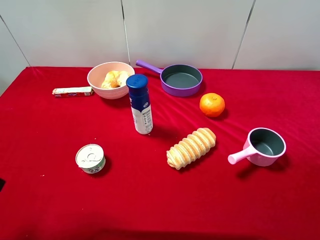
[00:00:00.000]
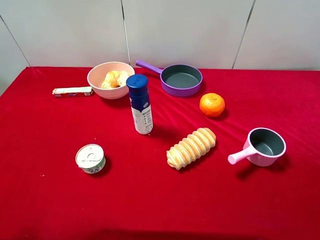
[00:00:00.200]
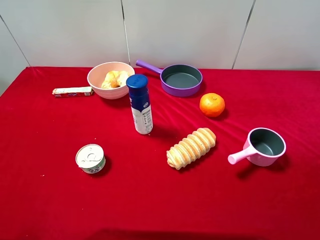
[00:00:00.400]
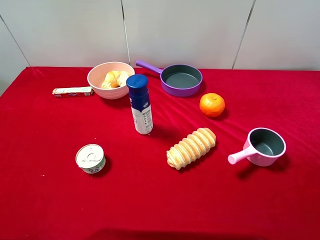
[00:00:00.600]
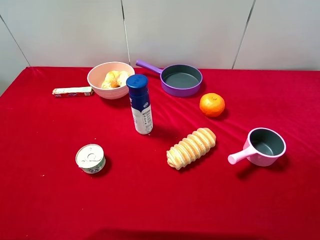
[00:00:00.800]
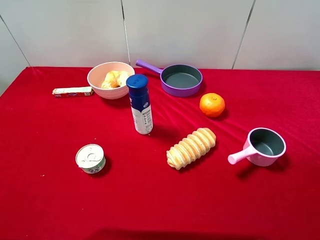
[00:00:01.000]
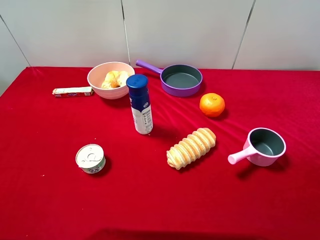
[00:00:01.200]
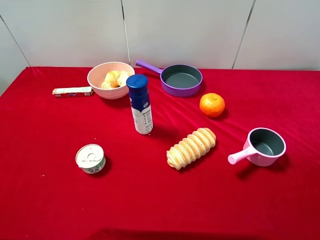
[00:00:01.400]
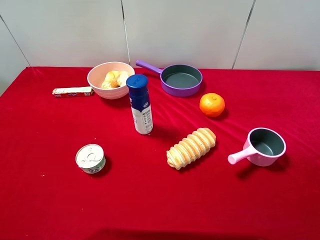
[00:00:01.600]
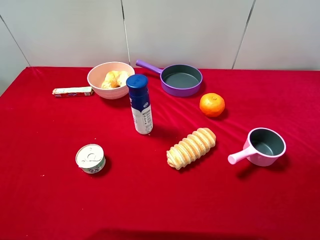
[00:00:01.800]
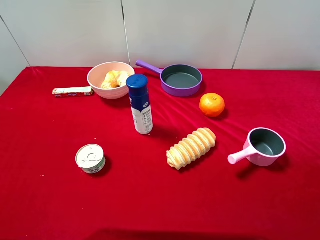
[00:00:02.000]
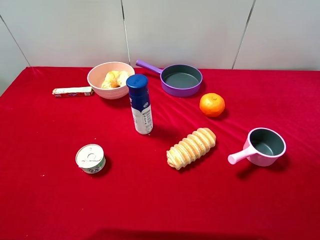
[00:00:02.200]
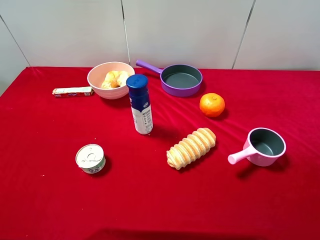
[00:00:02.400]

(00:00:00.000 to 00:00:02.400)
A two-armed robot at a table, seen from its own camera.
Task of the whole recording: pick up an item with a gripper and place it in a random container on the desktop.
00:00:01.200 - 00:00:02.400: Both grippers stay put.

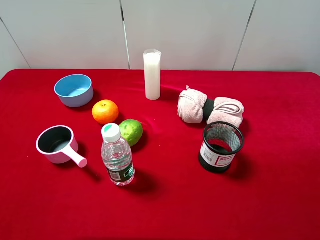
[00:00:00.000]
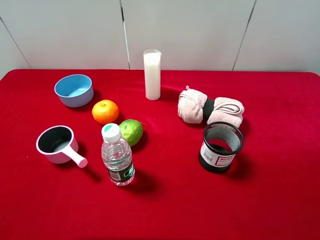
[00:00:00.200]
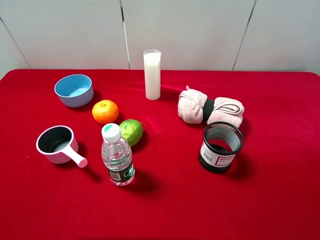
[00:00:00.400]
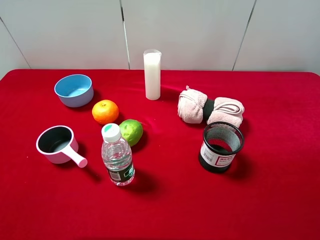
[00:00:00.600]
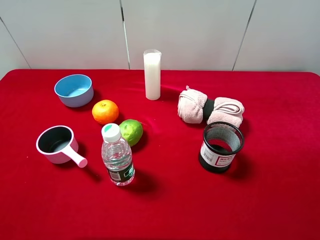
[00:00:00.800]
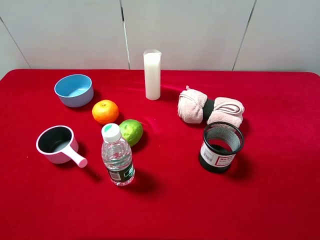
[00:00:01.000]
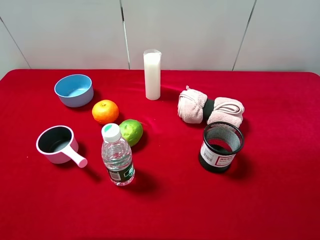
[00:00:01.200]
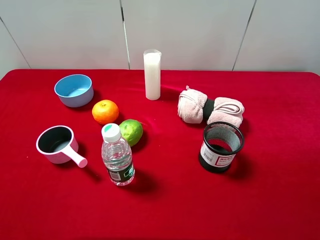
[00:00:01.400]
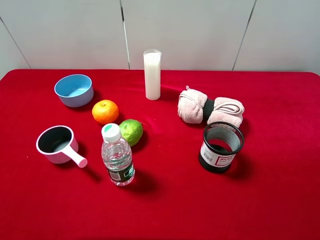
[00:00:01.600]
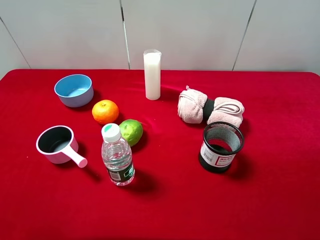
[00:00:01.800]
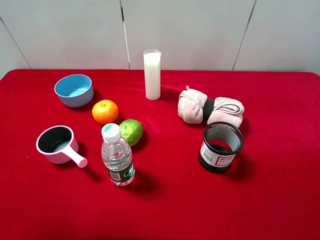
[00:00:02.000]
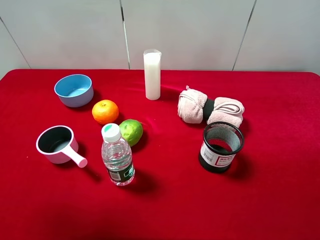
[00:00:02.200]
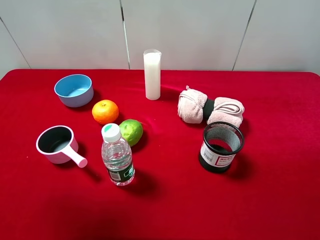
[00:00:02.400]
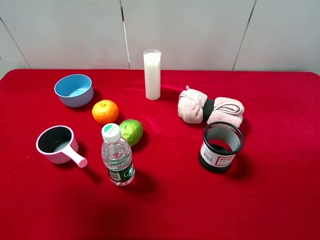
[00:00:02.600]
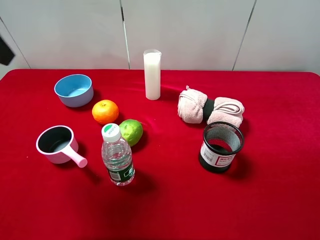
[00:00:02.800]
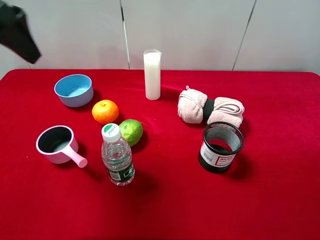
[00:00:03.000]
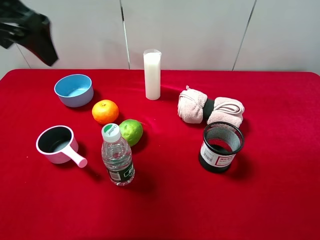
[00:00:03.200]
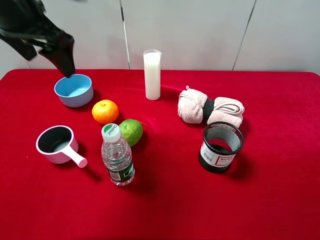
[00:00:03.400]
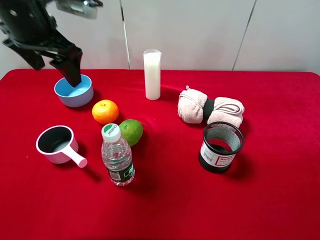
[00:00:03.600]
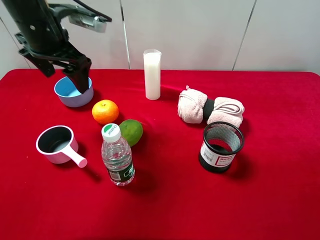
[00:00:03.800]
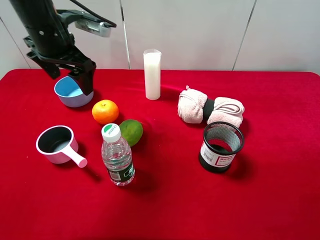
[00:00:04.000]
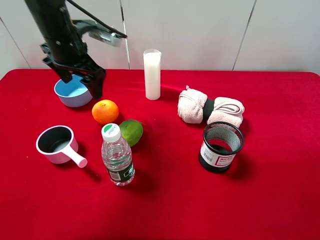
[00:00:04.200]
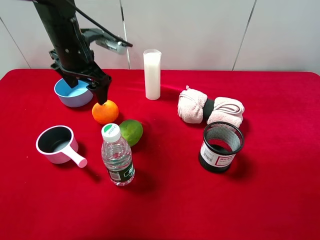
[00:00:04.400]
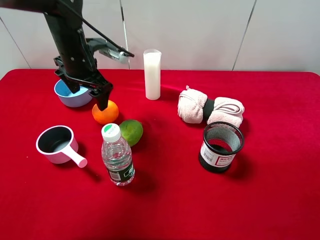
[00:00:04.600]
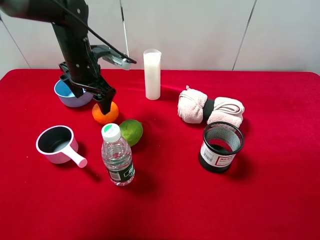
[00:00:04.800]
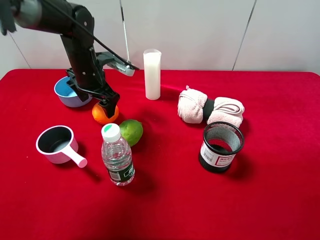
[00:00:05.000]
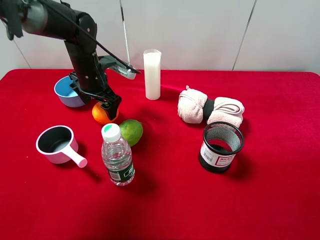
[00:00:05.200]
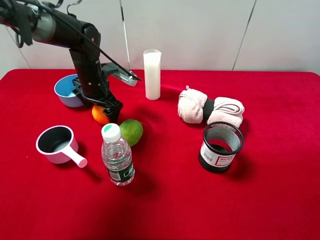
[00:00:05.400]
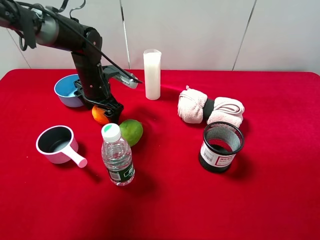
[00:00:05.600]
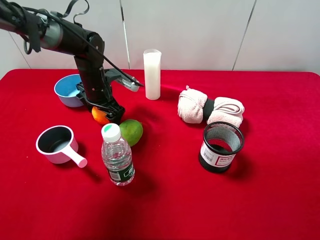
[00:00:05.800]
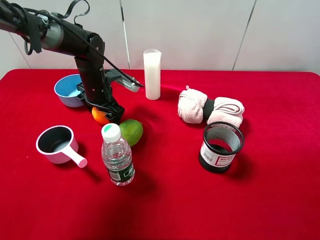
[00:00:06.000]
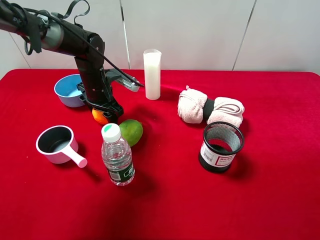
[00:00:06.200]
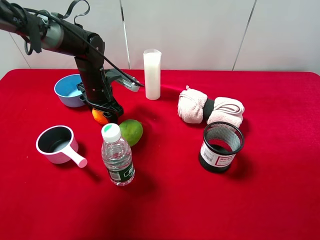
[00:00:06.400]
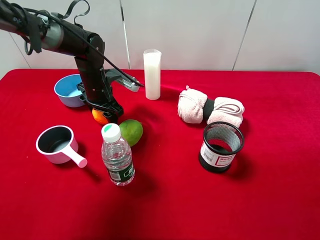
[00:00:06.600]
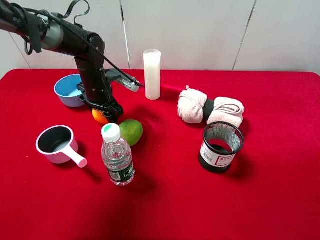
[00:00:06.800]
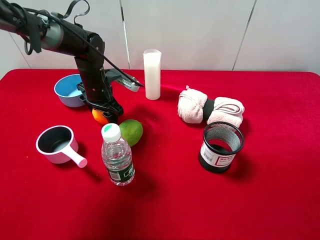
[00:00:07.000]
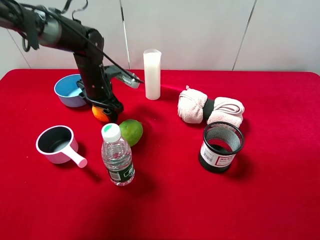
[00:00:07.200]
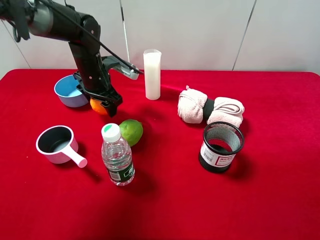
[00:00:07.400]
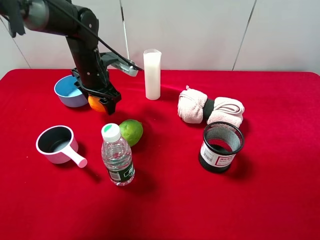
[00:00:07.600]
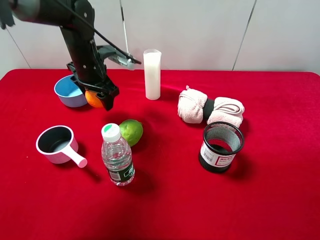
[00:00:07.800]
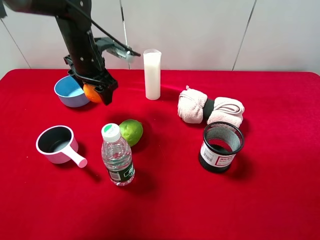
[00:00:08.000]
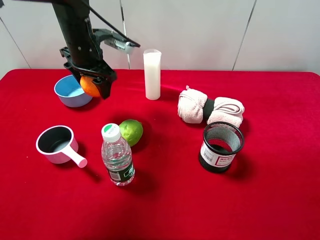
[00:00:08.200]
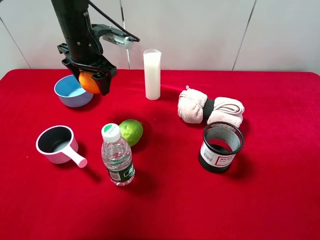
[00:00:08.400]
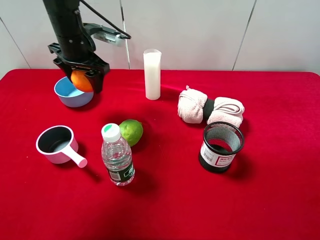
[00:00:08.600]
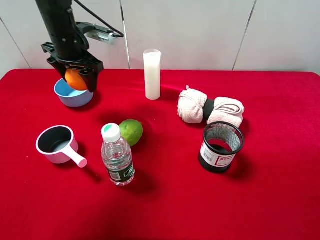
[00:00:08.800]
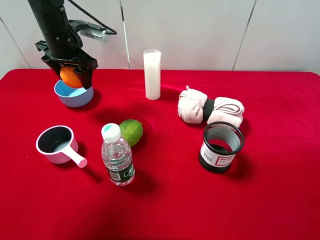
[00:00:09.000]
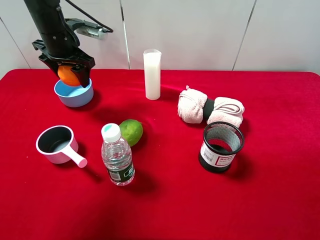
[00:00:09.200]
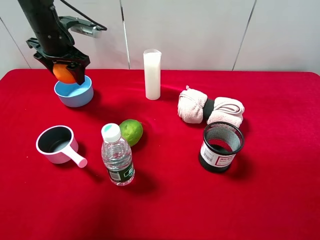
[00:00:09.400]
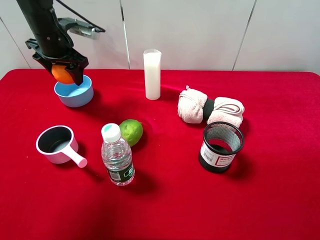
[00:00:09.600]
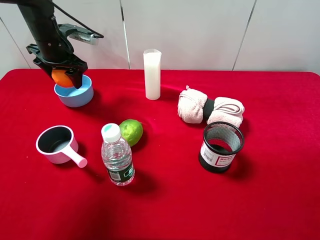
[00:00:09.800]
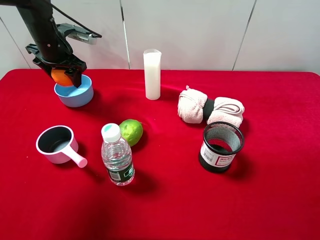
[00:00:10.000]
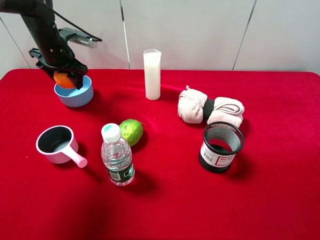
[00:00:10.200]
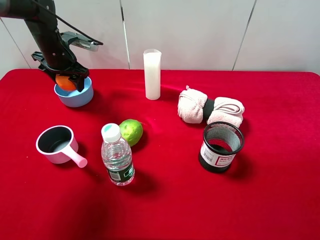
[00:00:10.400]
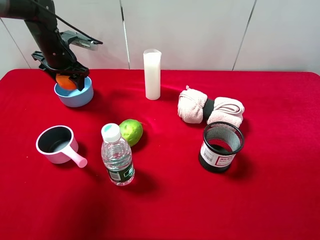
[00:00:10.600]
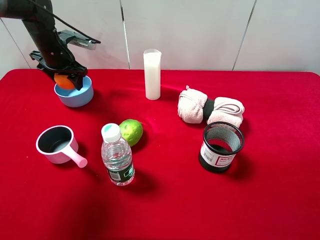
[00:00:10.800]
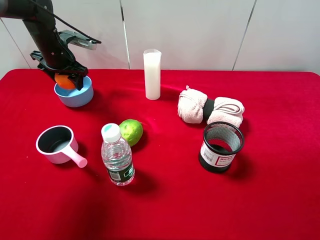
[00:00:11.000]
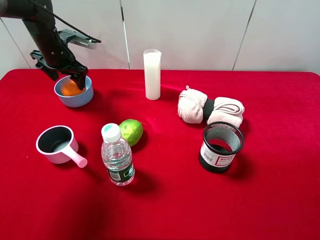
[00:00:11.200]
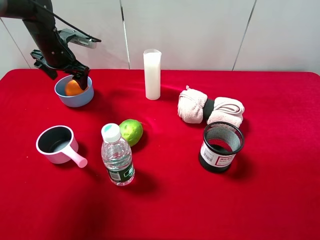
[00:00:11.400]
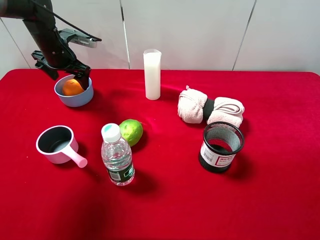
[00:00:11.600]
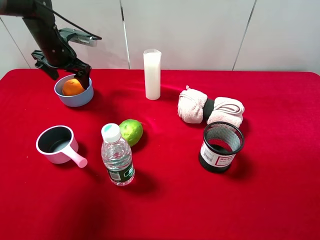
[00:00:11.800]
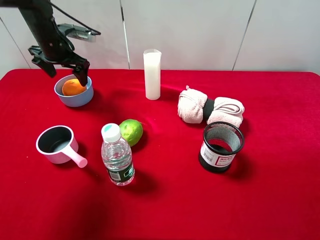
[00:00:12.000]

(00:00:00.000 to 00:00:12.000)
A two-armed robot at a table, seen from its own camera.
Task of the whole recording: pick up an item with a gripper and place it in a random container on the desktop.
00:00:01.600 - 00:00:03.000: The left gripper shifts about 20 cm forward.
00:00:03.000 - 00:00:04.400: The left gripper travels downward, forward and to the right by roughly 20 cm.
00:00:04.400 - 00:00:06.000: The left gripper shifts about 10 cm downward.
00:00:06.000 - 00:00:07.600: The left gripper goes about 5 cm upward, and closes up.
00:00:07.600 - 00:00:09.000: The left gripper travels upward and to the left by roughly 10 cm.
00:00:09.000 - 00:00:10.400: The left gripper shifts some 5 cm downward.
00:00:10.400 - 00:00:12.000: The left gripper opens its fingers.

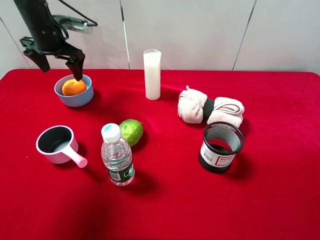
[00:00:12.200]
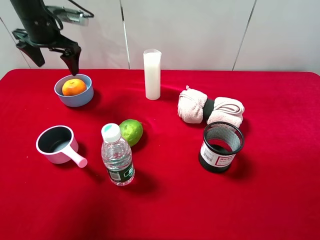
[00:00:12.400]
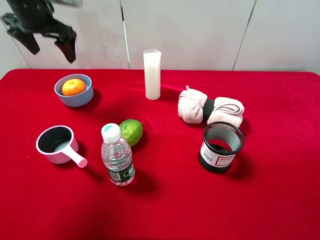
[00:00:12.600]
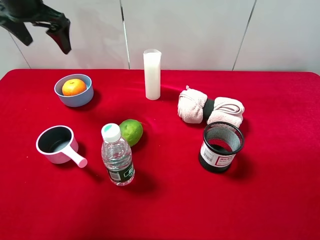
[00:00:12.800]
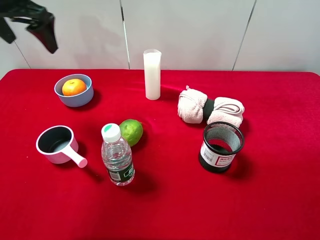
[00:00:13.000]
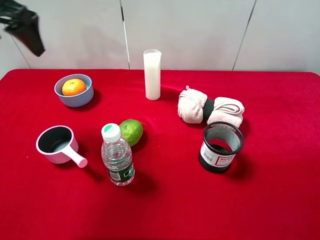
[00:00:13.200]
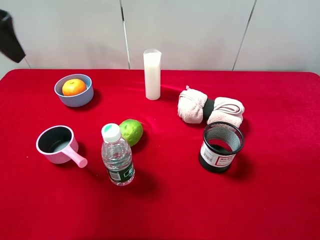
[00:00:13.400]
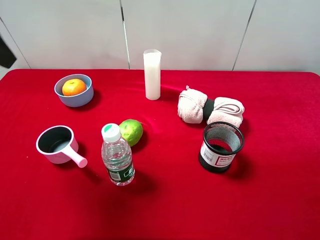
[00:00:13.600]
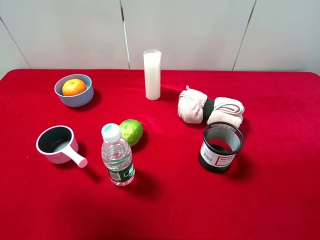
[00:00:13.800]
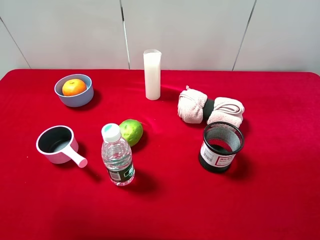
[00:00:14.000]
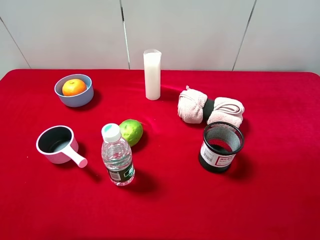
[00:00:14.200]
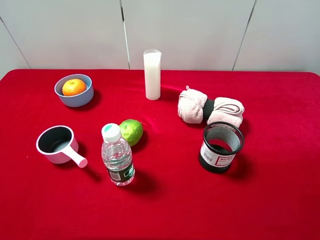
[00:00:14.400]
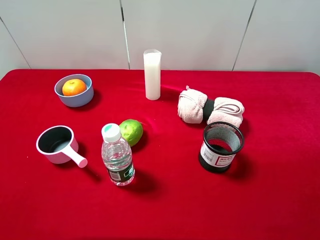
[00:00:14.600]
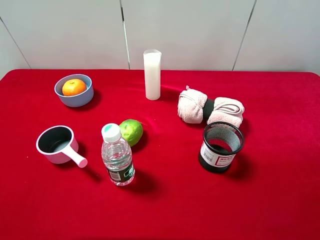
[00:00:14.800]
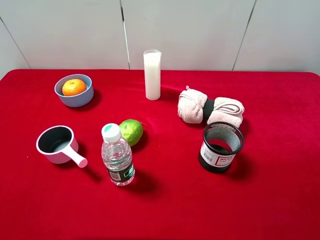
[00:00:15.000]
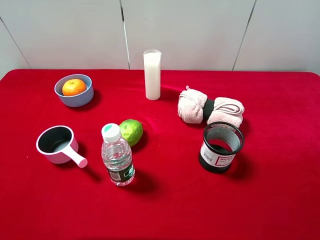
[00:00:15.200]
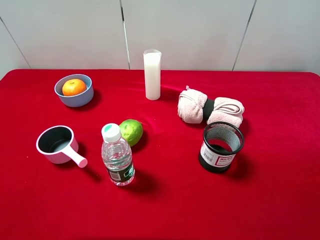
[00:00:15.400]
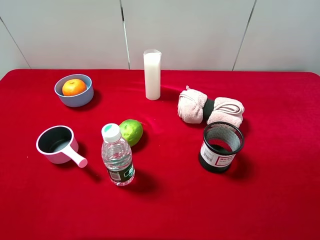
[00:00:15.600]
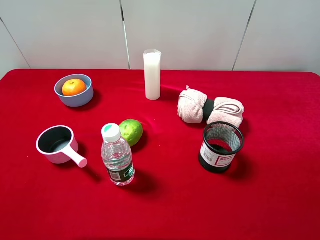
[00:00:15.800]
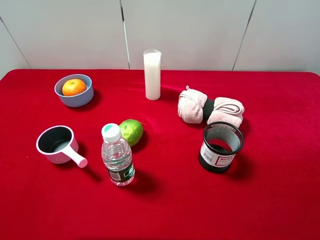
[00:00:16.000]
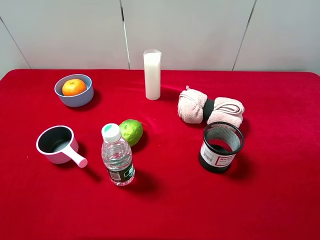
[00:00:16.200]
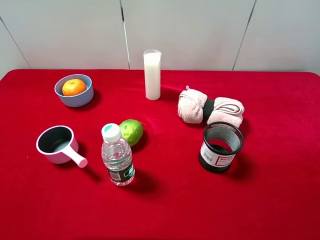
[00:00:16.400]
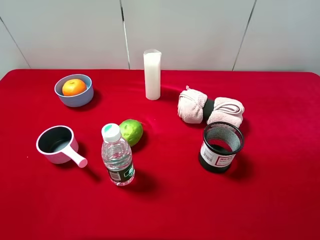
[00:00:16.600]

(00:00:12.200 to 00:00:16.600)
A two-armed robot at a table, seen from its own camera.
Task of the whole recording: pick up an item with a gripper and place it in a random container on the desktop.
00:00:12.200 - 00:00:13.600: The left gripper heads backward and upward, covering about 30 cm.
00:00:13.600 - 00:00:15.200: The left gripper goes approximately 25 cm backward and downward.
00:00:15.200 - 00:00:16.600: Both grippers stay put.
